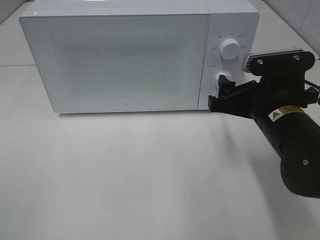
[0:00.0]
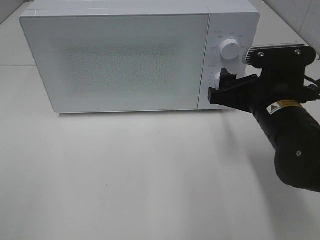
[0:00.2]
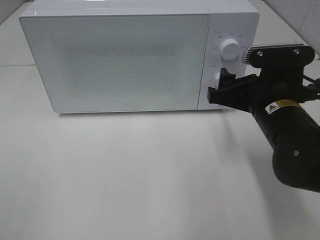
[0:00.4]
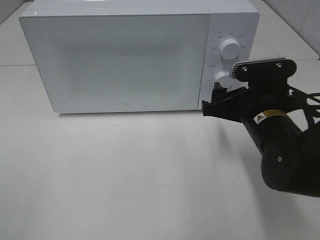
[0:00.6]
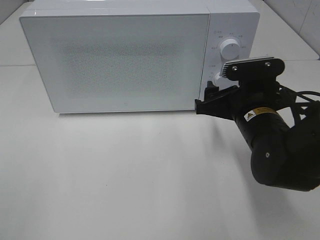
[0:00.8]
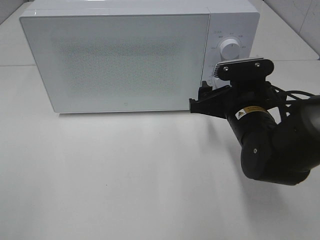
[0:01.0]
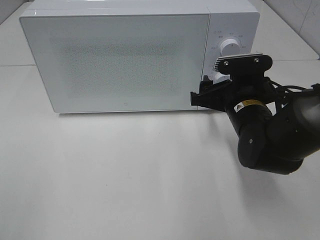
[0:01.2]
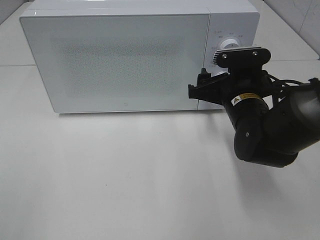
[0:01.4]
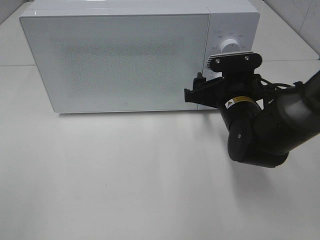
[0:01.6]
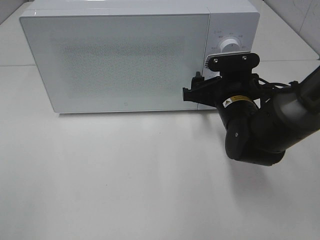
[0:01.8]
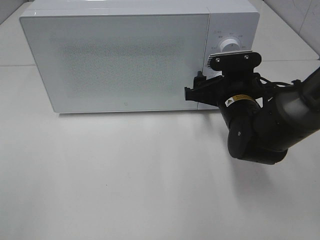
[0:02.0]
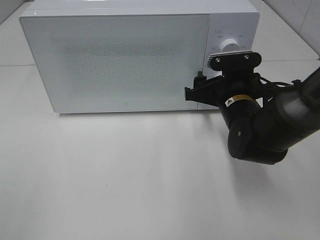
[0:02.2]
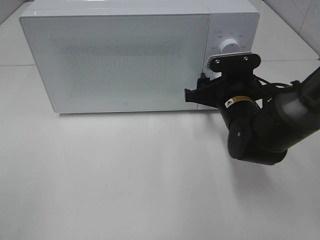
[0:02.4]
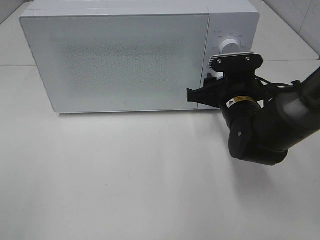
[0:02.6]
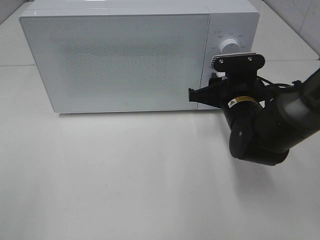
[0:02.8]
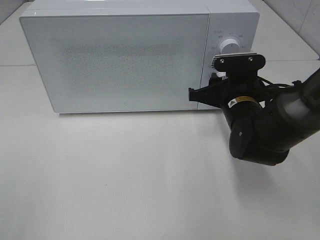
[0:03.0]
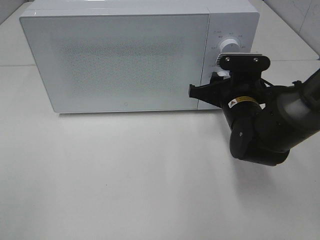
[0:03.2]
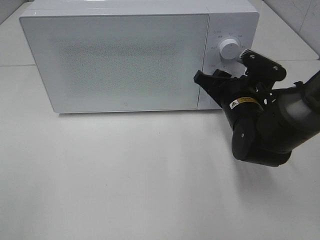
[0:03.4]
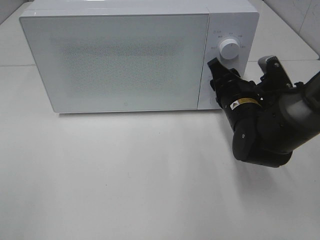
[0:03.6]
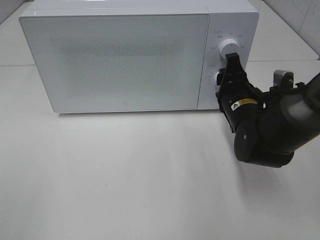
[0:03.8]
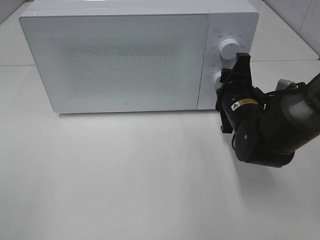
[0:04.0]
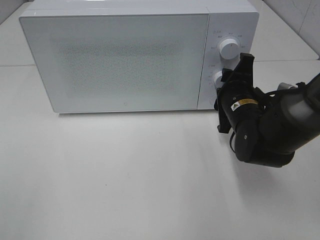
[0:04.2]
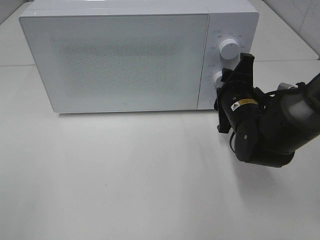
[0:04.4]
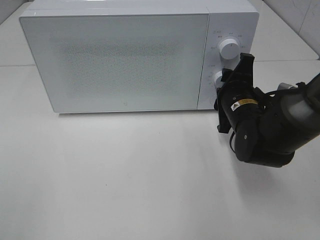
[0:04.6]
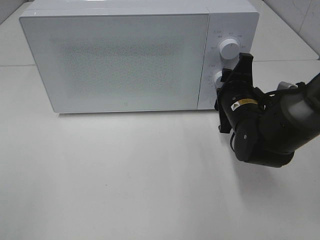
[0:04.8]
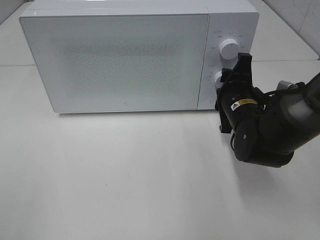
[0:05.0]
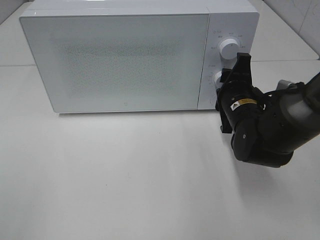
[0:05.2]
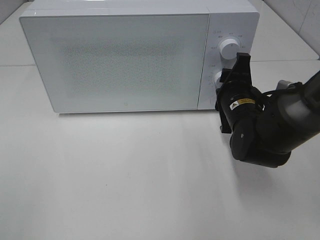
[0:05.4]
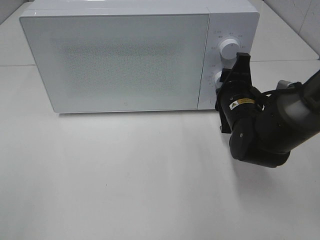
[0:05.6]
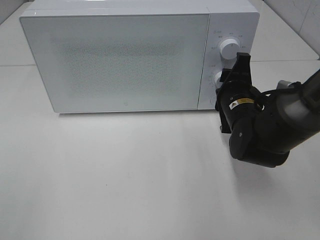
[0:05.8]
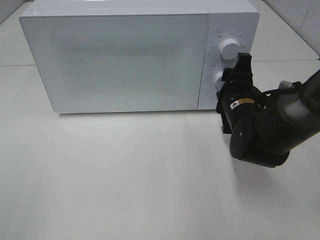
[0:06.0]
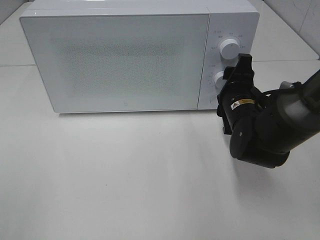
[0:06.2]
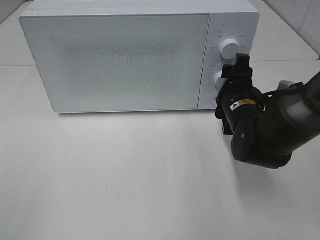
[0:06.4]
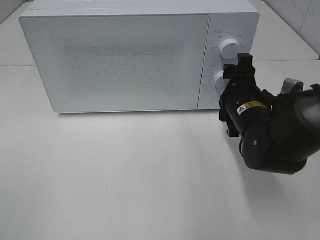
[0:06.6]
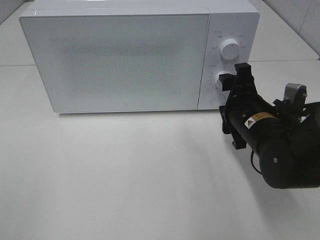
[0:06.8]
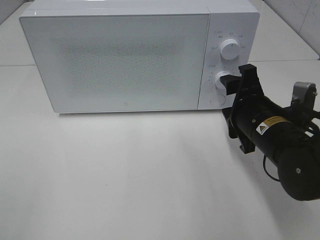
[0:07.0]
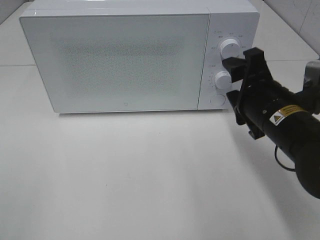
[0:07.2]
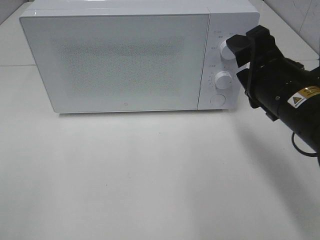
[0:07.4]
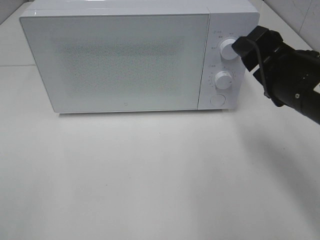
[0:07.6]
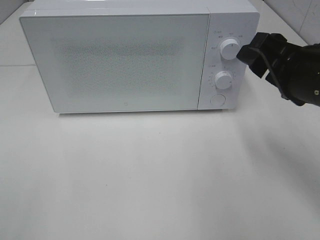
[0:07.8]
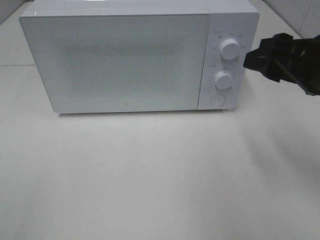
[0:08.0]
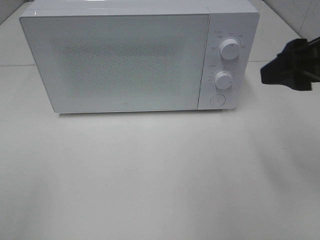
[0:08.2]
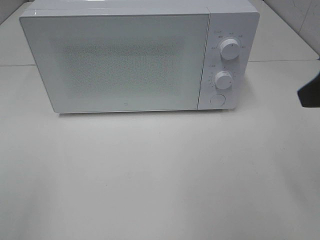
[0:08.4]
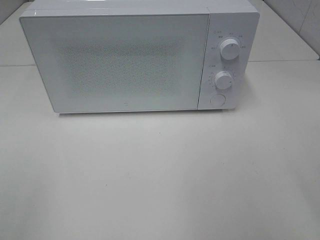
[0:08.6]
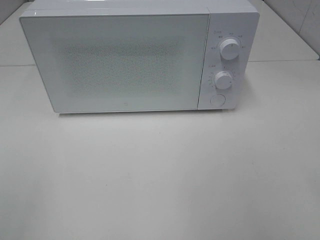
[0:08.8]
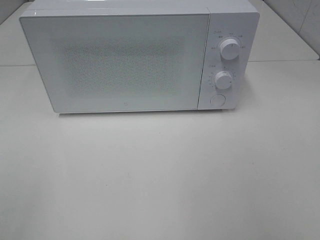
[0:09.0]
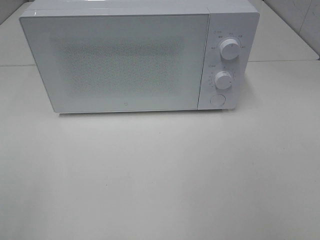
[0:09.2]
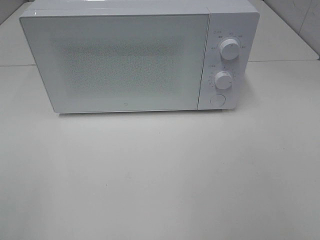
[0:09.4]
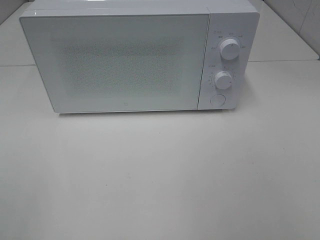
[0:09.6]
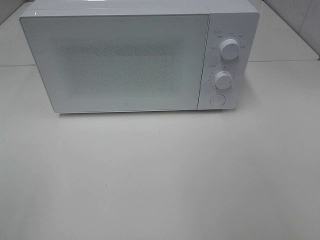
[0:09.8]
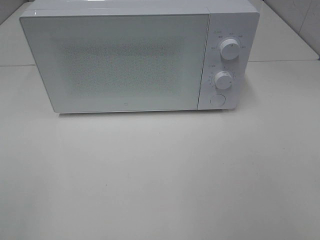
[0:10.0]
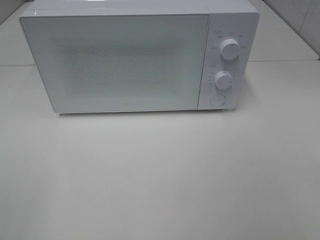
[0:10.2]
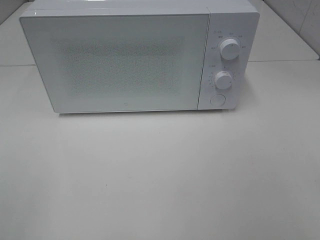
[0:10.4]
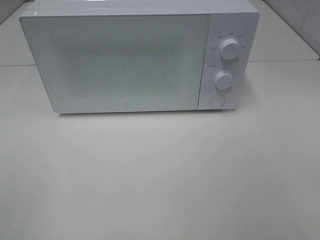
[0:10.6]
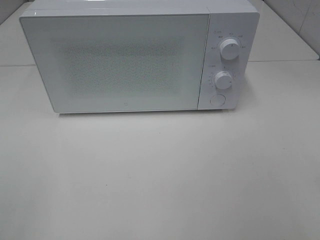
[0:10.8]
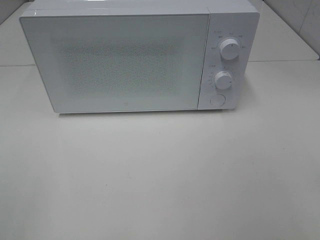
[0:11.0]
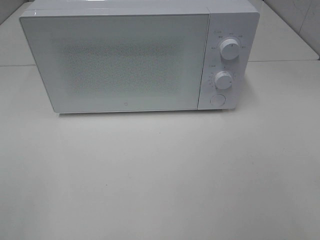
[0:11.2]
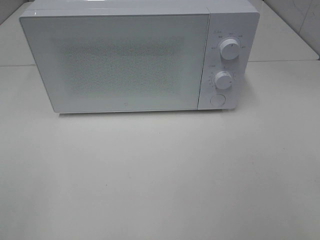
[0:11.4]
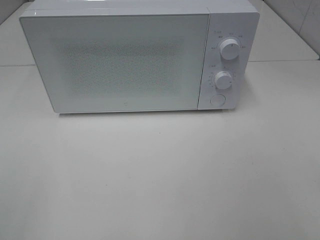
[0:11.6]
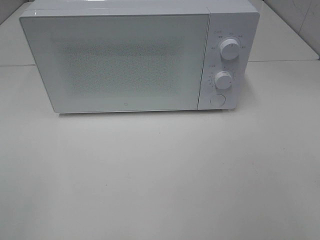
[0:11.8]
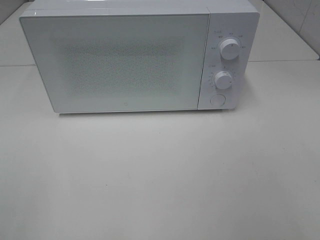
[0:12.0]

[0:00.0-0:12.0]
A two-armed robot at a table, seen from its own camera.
Task of the whole recording: Heat the burger.
Step, 0:00.0 to 0:06.0: Right hand: twist timer button.
0:00.0 to 0:01.6: The right gripper shifts about 5 cm forward.
0:01.6 to 0:03.0: The right gripper closes its fingers.
0:04.4 to 0:06.0: The grippers make only small movements.
0:06.0 to 0:07.6: The right gripper moves upward and backward, approximately 15 cm.
0:07.6 to 0:09.0: The right gripper shifts some 25 cm backward, upward and to the right.

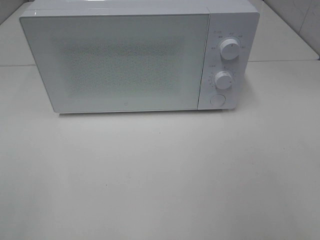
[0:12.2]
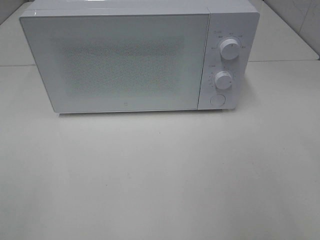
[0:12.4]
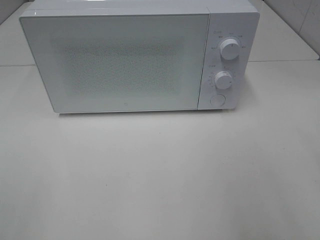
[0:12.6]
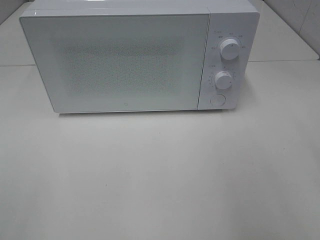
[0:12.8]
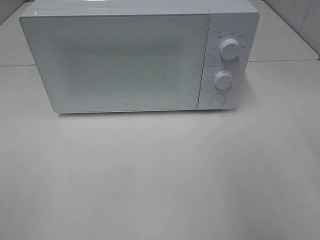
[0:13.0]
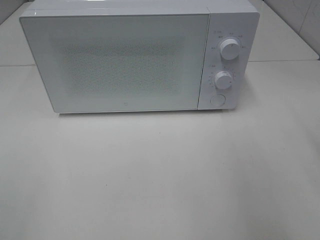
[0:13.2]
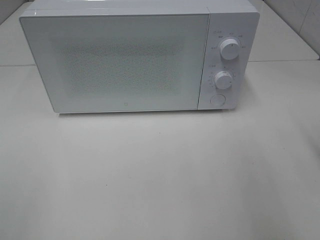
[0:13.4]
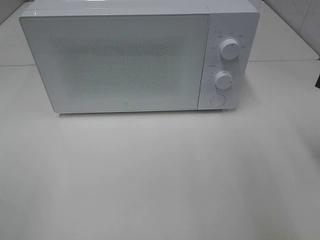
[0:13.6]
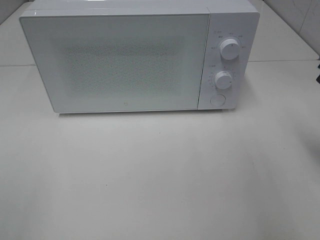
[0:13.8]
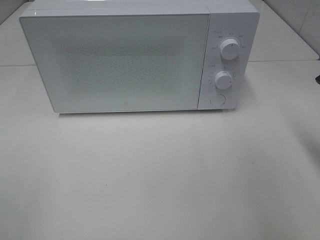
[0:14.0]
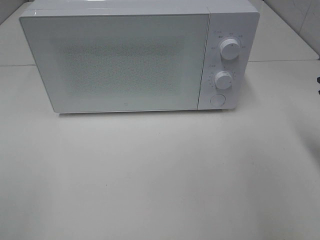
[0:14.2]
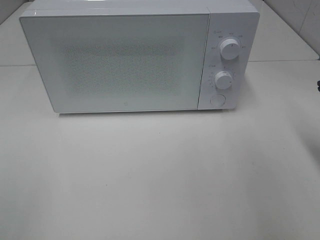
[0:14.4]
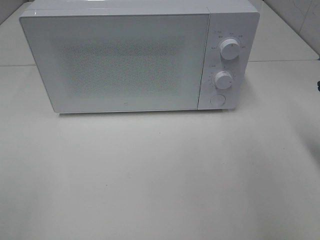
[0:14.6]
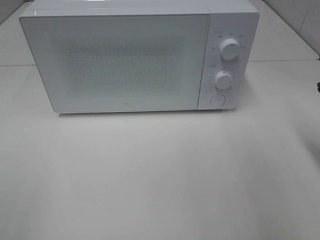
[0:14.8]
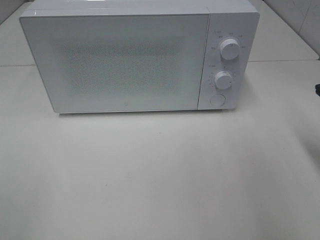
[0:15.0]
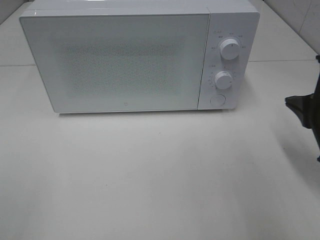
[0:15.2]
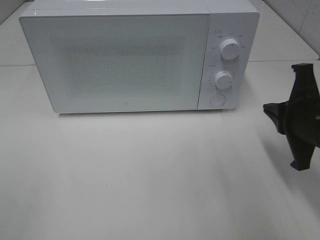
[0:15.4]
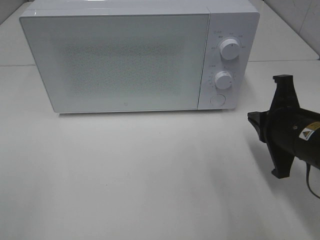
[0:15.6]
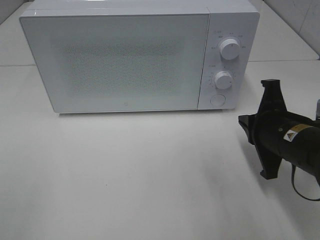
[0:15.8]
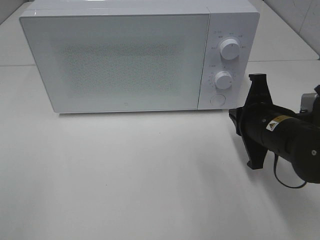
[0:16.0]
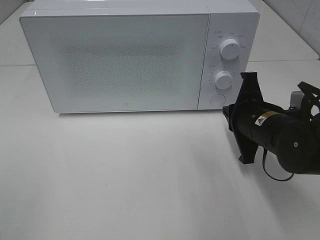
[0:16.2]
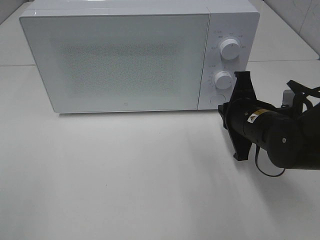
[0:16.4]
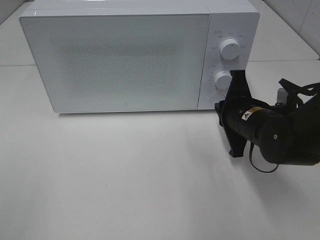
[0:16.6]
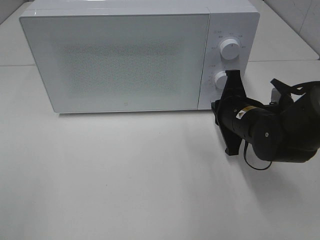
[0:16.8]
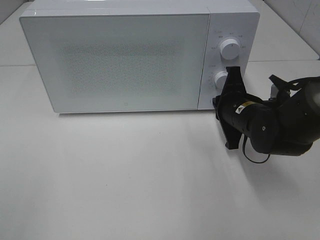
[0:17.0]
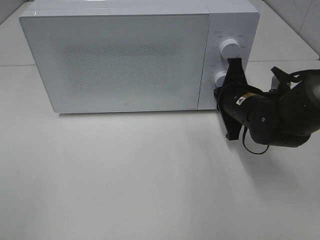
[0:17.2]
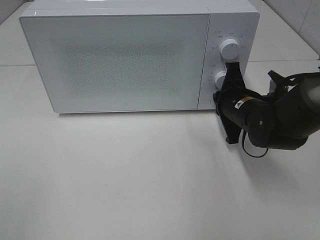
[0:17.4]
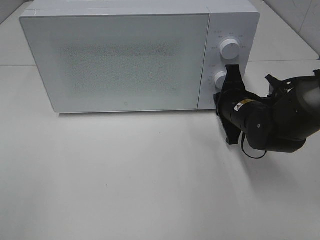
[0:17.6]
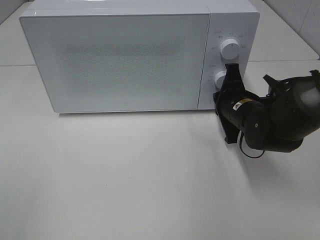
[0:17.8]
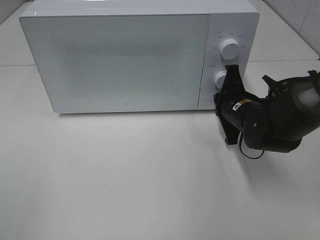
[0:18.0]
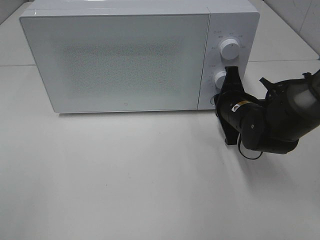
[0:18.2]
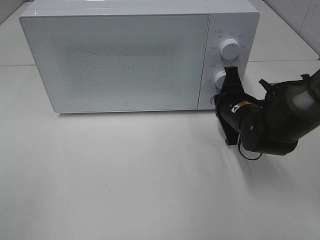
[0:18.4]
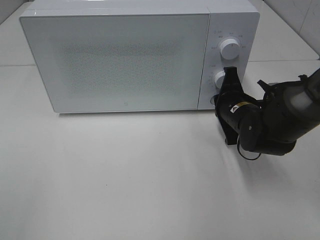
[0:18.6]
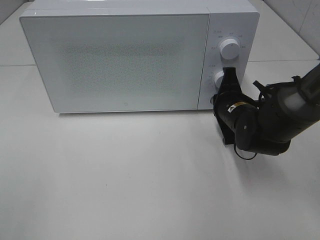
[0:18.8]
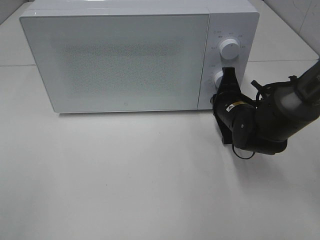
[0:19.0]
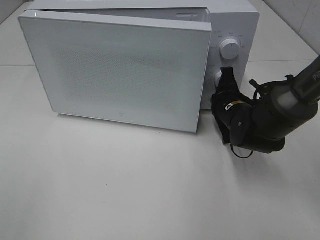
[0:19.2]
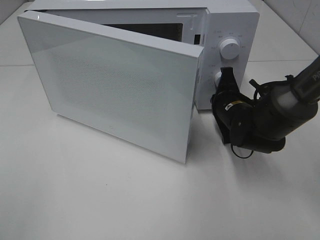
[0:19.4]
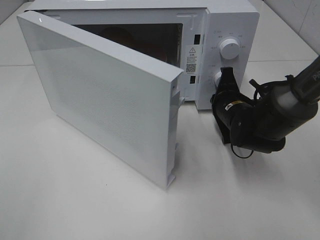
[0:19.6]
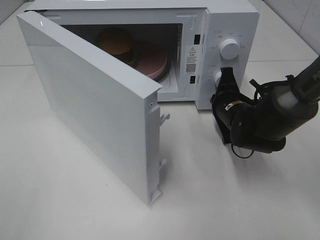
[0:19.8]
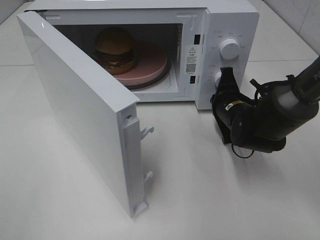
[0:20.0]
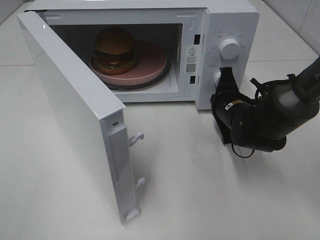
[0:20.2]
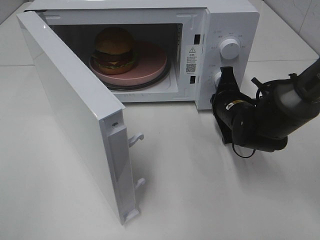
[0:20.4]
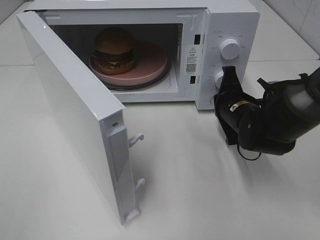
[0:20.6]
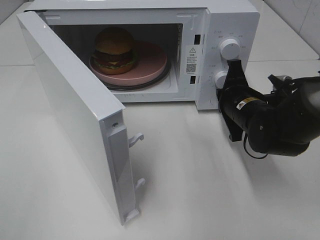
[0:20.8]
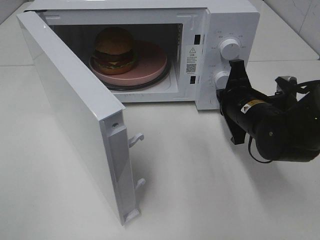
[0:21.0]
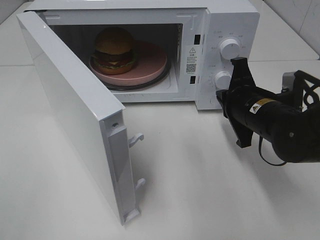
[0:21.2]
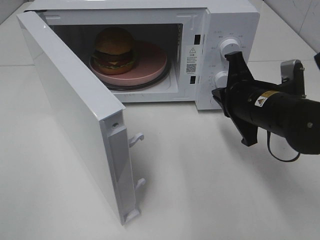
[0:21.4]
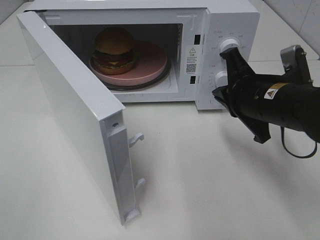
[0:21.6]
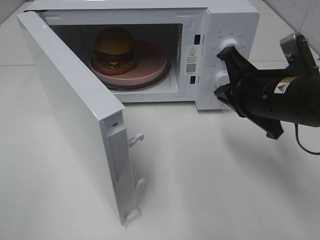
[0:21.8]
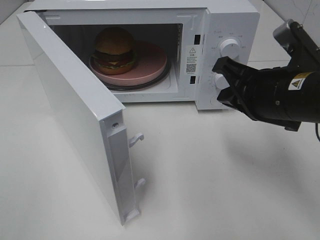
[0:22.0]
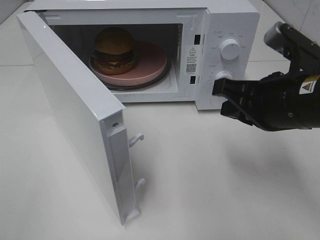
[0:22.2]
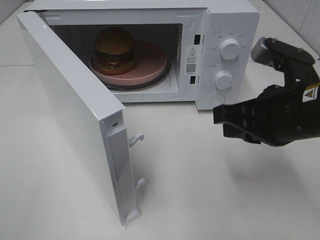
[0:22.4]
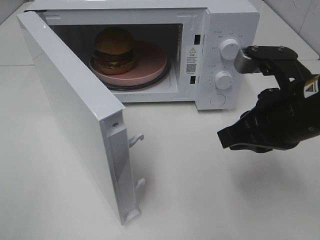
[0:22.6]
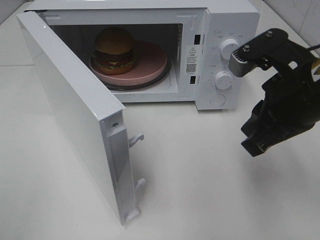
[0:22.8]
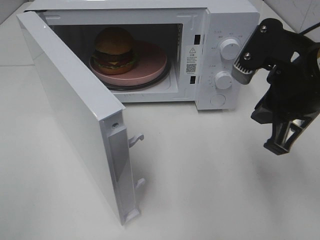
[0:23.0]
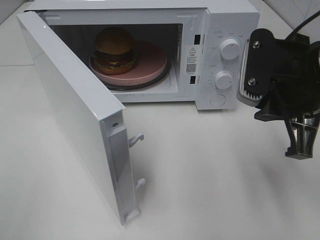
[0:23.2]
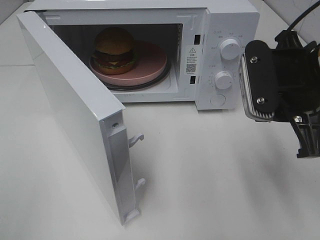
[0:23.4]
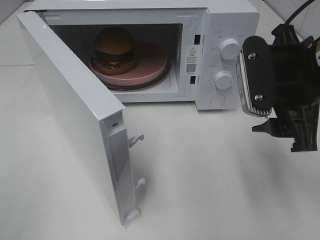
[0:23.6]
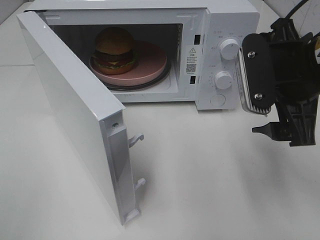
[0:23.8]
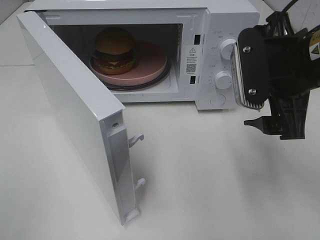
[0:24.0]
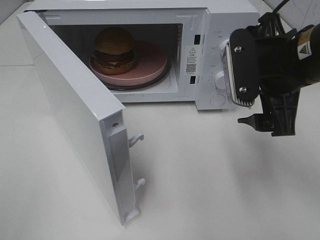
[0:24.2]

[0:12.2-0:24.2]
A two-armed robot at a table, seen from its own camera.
Task of the whole recording: Heat the burger.
Step, 0:12.2 to 0:20.6: Right hand: press the switch.
0:15.2 to 0:16.6: The right gripper heads to the left, forward and downward, covering approximately 15 cm.
0:16.6 to 0:18.2: The grippers make only small movements.
0:19.8 to 0:21.2: The right gripper shifts about 10 cm backward and upward.
0:21.2 to 0:22.6: The right gripper travels upward and backward by about 10 cm.
0:22.6 to 0:24.2: The right gripper moves roughly 5 cm, and opens its fingers.
